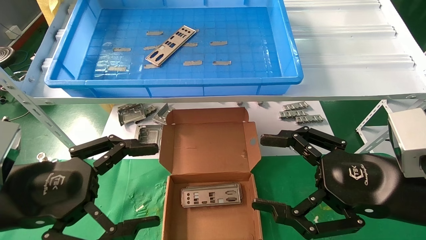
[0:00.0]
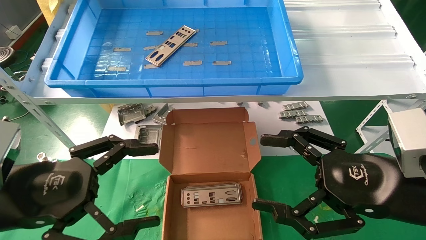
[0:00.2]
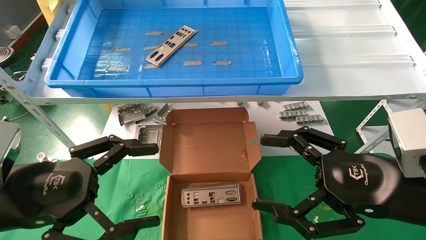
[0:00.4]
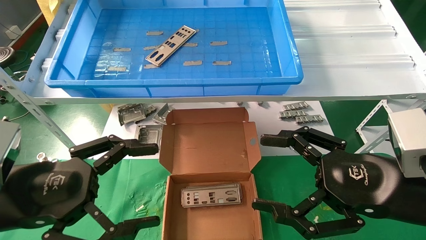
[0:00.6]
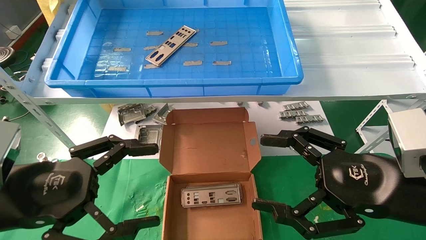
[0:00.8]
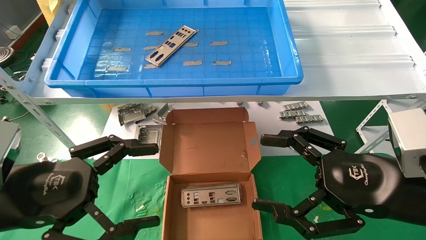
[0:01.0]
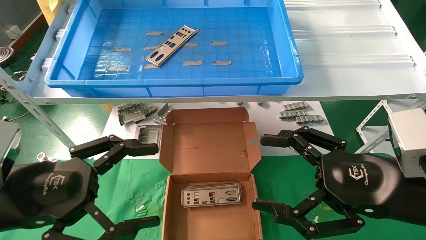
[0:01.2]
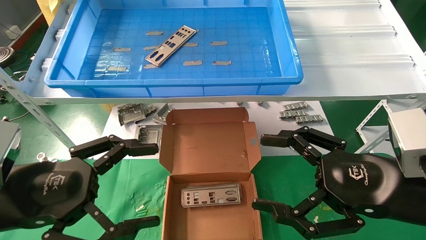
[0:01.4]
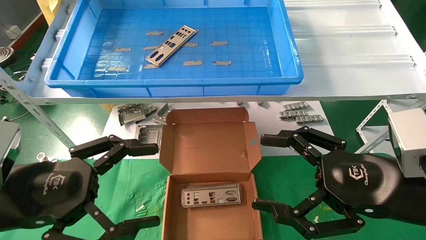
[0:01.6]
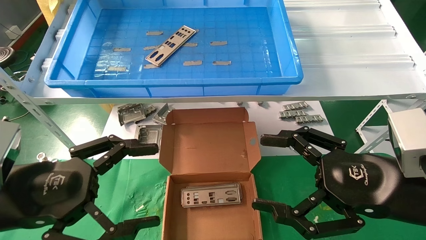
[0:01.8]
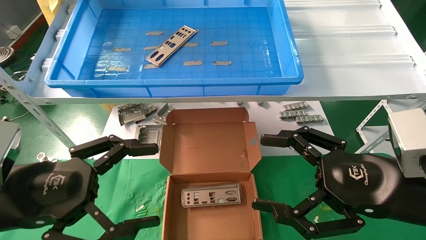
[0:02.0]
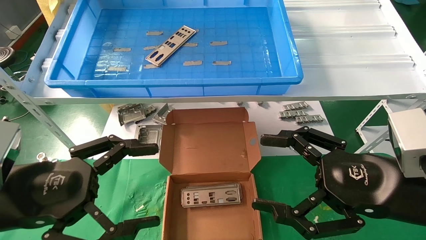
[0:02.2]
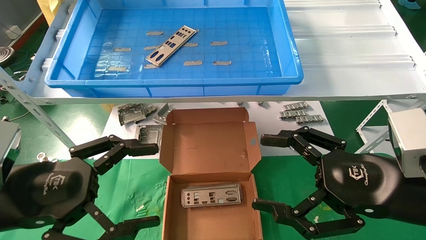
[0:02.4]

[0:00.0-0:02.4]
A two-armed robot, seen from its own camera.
Task of the whole recording: pick up the parts on the tray and put them in the cardboard box.
0:00.0 to 0:02.4: Neither gripper changes place.

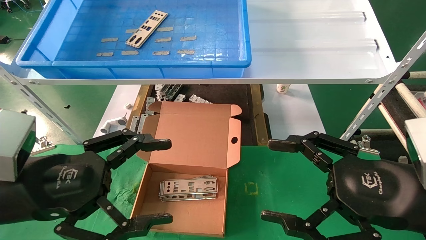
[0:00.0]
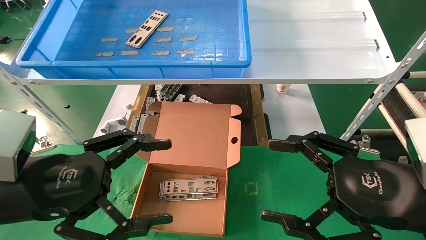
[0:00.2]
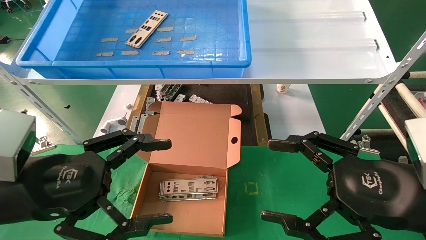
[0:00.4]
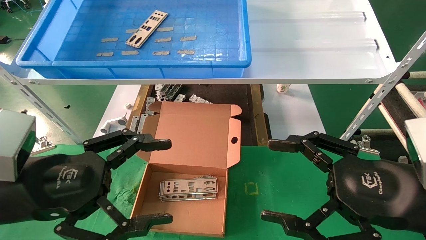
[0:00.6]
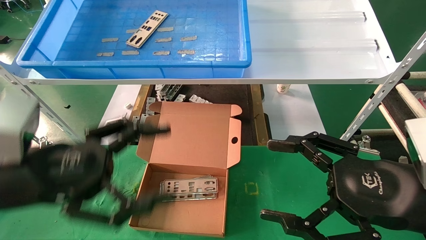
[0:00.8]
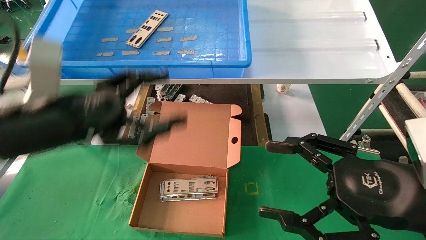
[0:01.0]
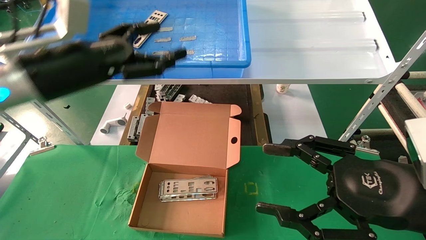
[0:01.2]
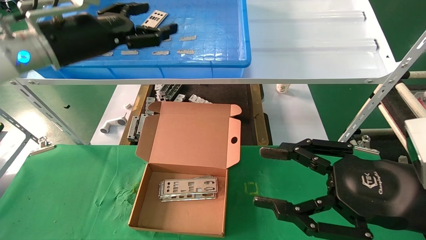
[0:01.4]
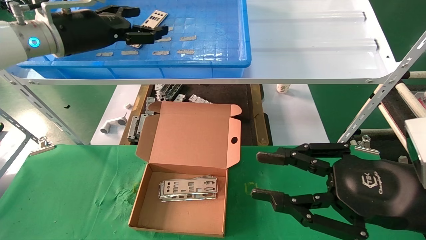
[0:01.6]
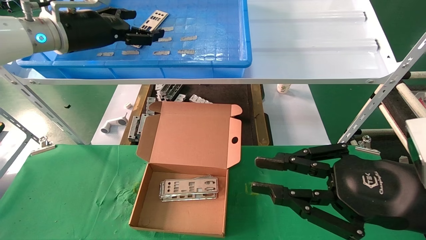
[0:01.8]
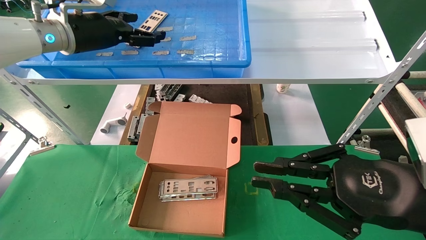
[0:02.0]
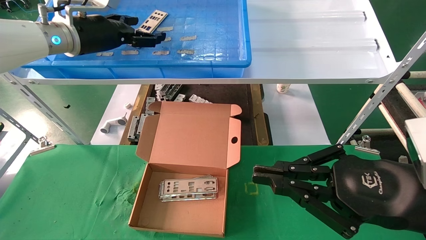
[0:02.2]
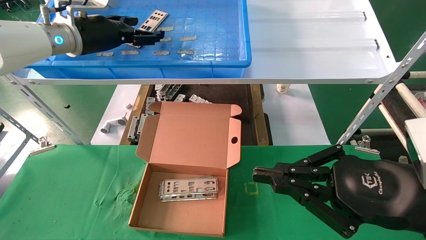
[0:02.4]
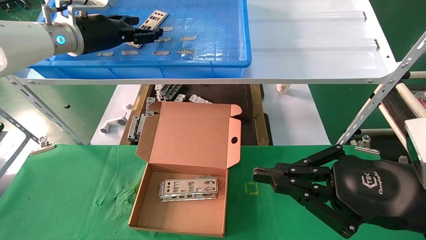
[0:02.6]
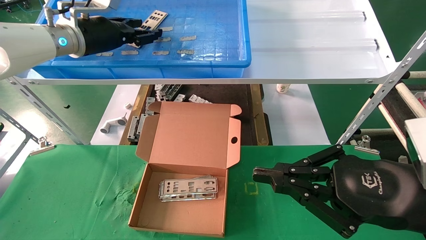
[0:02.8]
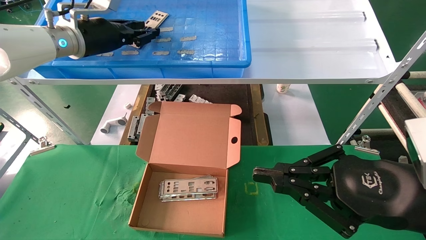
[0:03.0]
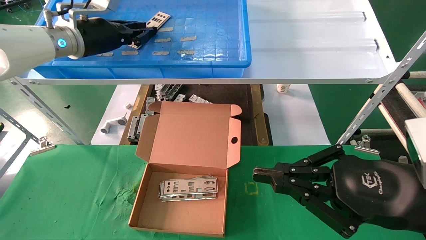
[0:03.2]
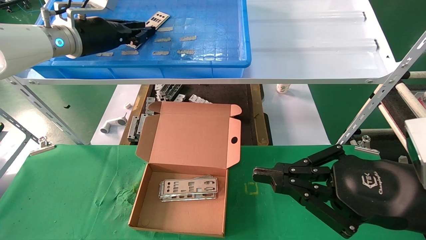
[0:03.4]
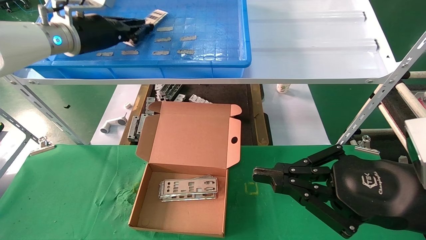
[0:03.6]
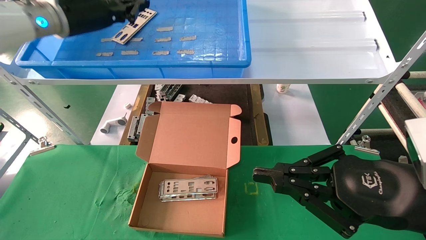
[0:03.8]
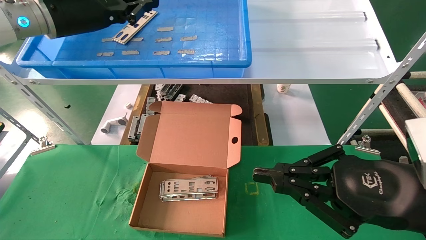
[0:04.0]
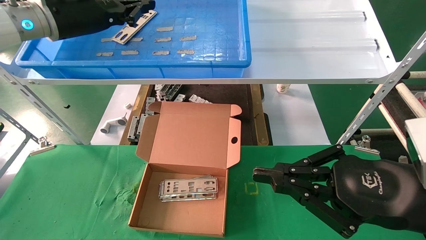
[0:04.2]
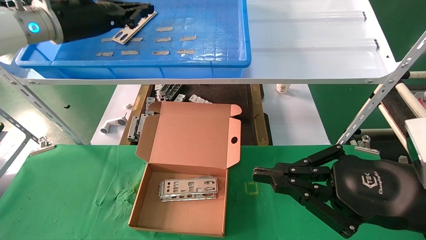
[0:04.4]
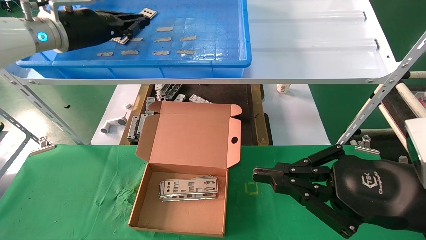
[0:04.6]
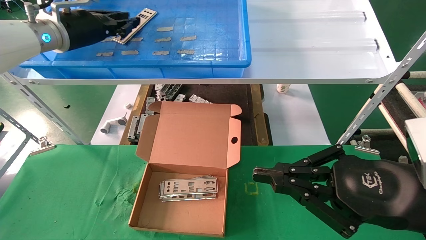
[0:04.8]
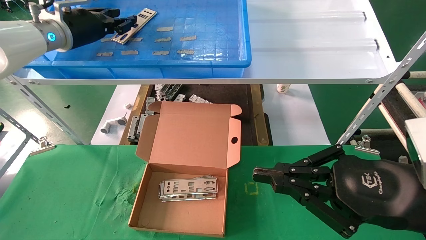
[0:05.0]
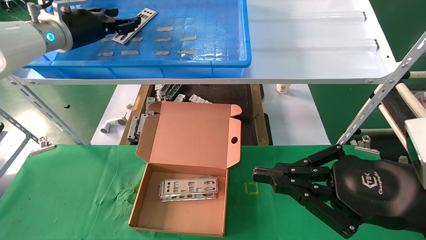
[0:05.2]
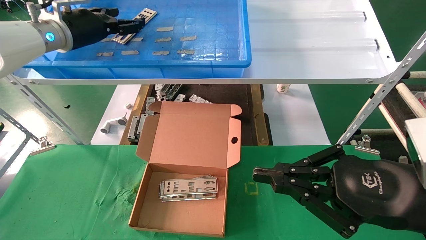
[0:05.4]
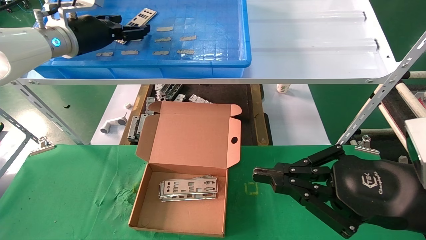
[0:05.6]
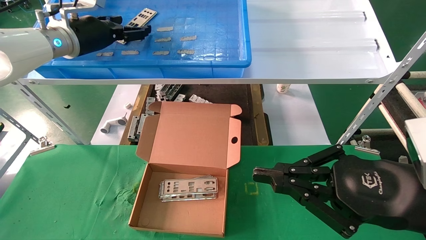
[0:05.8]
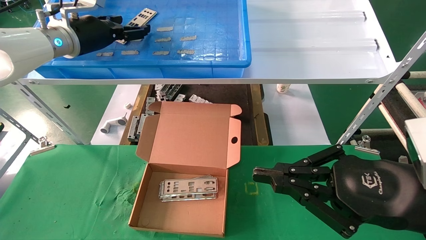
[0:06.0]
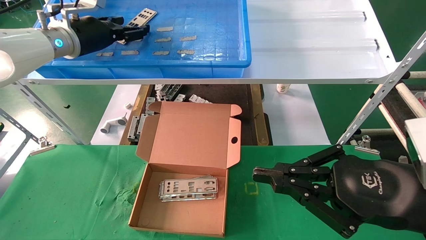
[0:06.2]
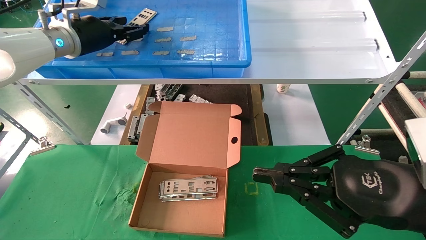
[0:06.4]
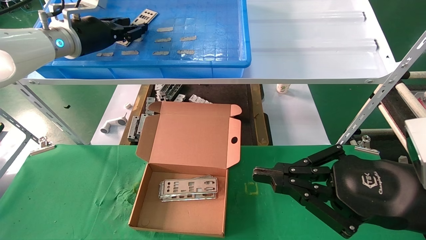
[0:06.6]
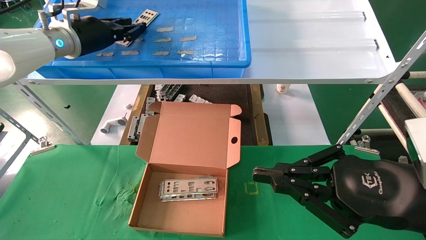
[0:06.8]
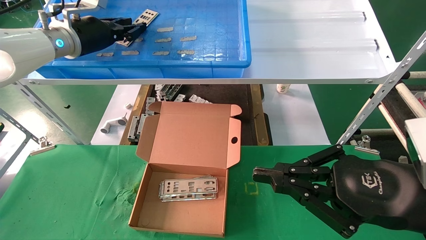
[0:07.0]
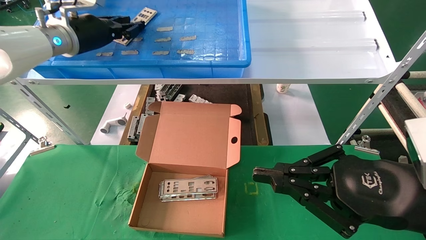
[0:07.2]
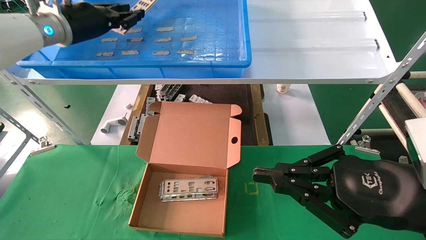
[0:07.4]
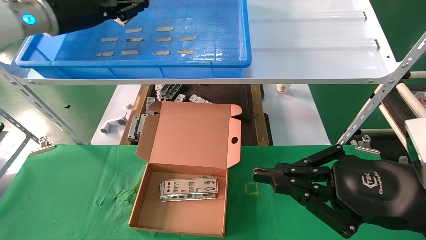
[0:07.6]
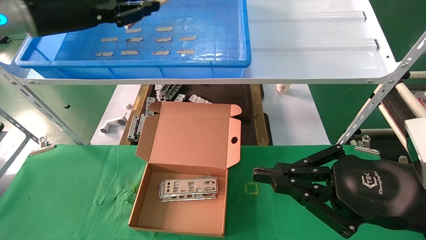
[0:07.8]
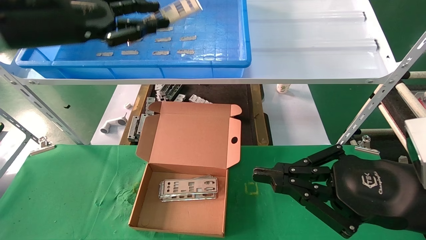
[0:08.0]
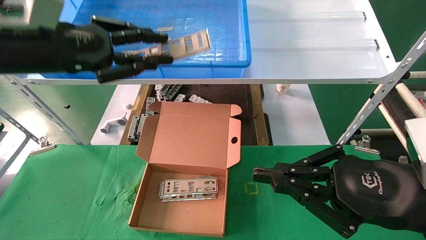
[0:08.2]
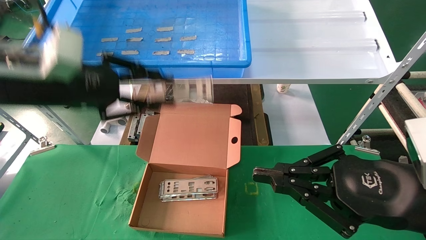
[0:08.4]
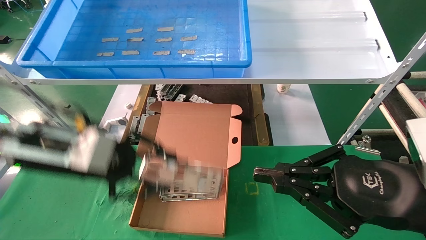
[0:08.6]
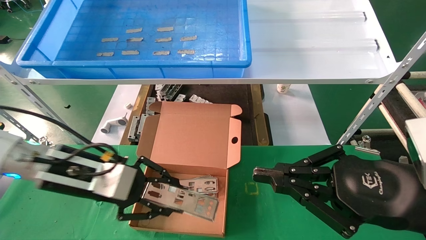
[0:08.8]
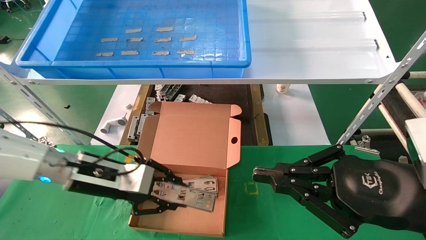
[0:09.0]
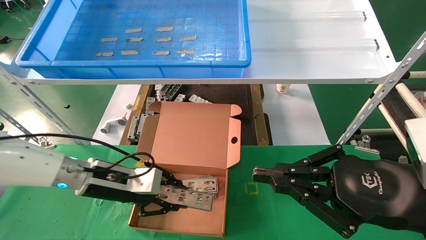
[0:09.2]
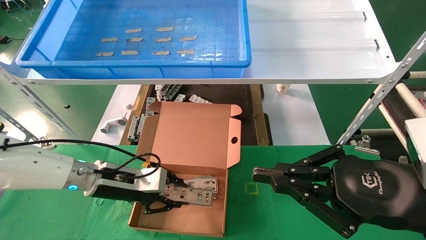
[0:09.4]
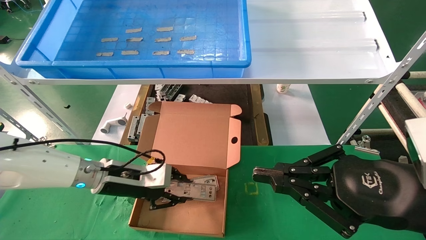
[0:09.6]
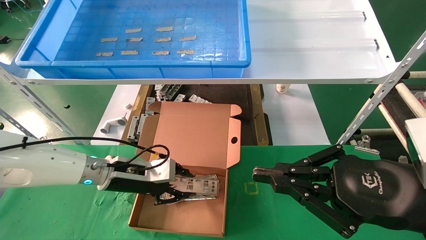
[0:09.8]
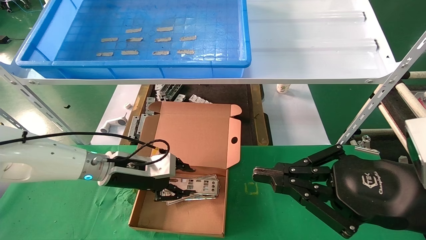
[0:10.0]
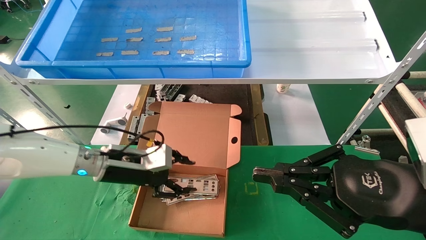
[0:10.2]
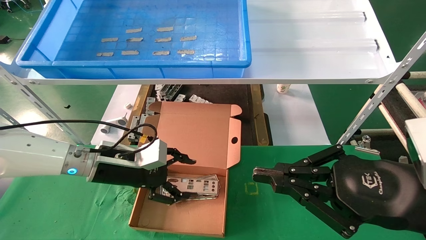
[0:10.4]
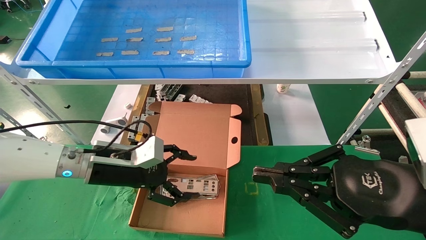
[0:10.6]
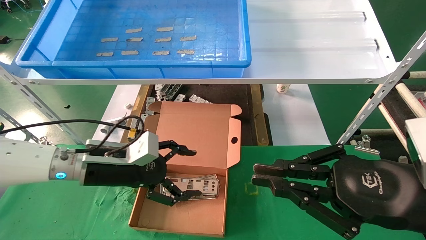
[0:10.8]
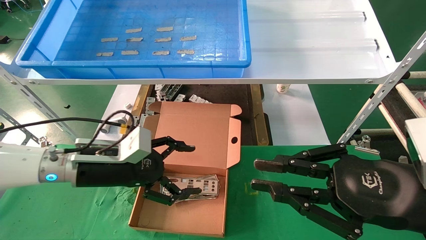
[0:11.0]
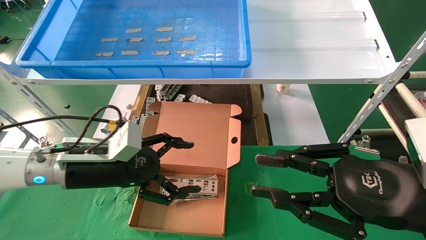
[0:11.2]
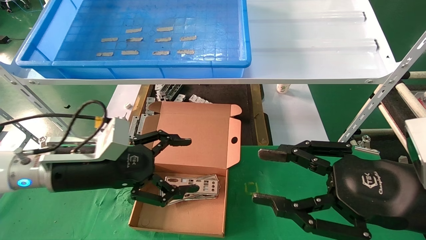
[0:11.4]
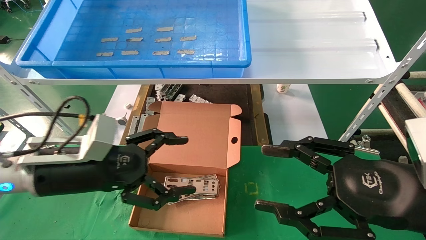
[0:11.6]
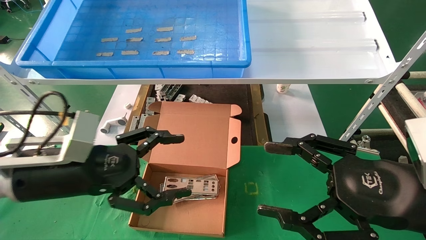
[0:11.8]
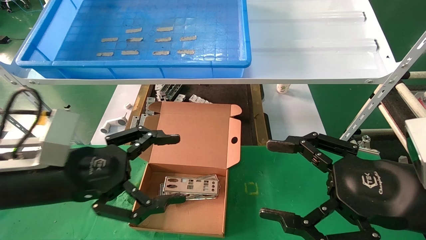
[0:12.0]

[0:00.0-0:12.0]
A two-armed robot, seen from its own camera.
Task of the whole recording: pick up the parts on the tray and put them in the cardboard box.
Step, 0:01.0 to 0:07.4: Pick up the IO bracket from the container box.
Step, 0:07.6 to 0:10.0: Place the IO bracket into the ingredient slot.
0:00.0 to 0:01.6: The right gripper closes its fingers; the left gripper is displaced forward and upward by approximately 25 cm.
0:01.6 to 0:03.0: The right gripper closes; the left gripper closes up.
0:03.0 to 0:04.4: The left gripper closes.
0:04.4 to 0:06.0: The left gripper opens its fingers.
0:06.0 to 0:07.6: The left gripper ends up approximately 5 cm from where it was, and closes its fingers.
0:07.6 to 0:09.0: The left gripper heads downward, covering approximately 25 cm.
0:09.0 to 0:10.4: The left gripper opens up.
0:10.4 to 0:12.0: The left gripper moves backward and upward, some 15 cm, and opens up. The right gripper opens up.

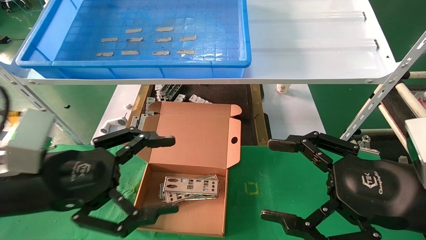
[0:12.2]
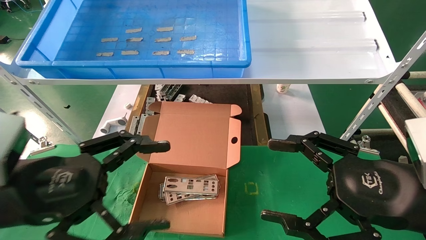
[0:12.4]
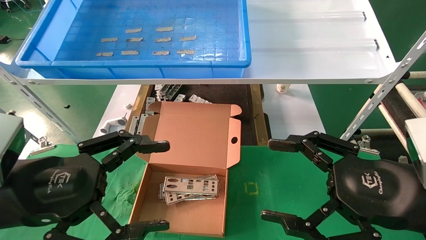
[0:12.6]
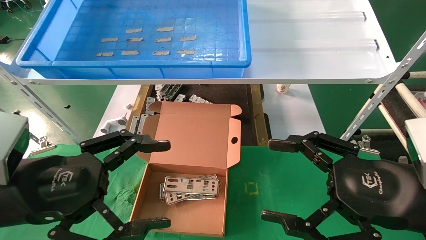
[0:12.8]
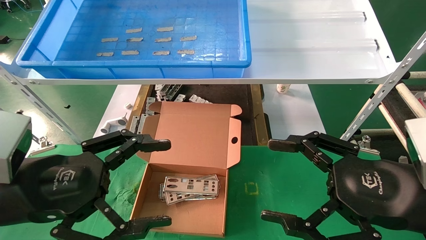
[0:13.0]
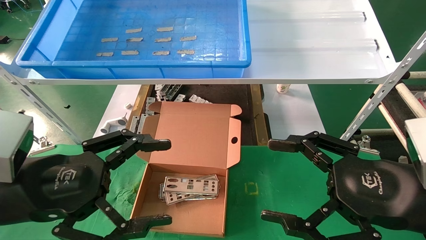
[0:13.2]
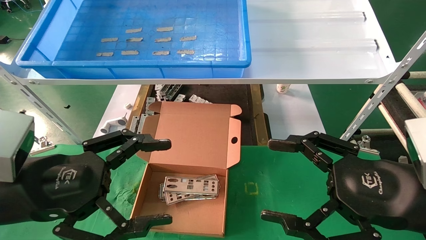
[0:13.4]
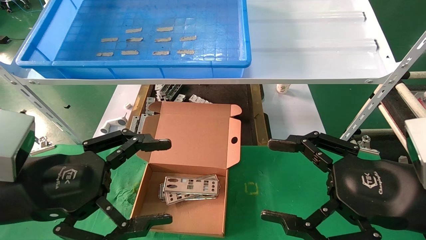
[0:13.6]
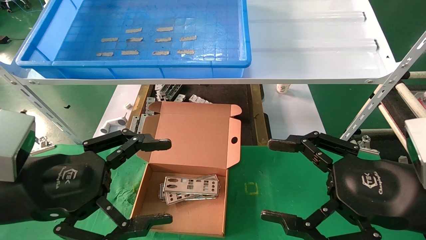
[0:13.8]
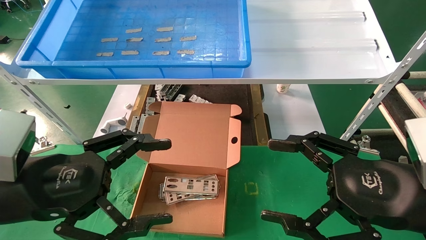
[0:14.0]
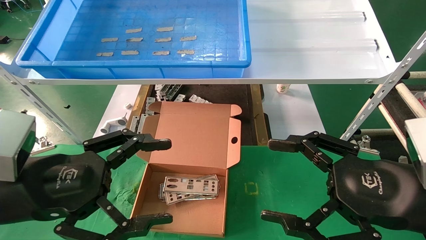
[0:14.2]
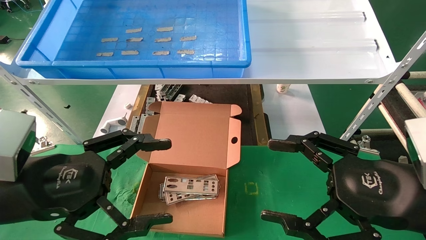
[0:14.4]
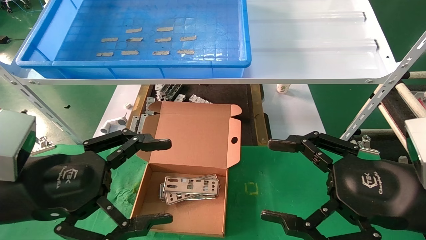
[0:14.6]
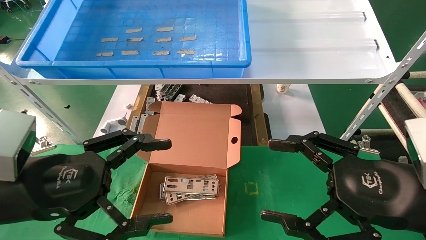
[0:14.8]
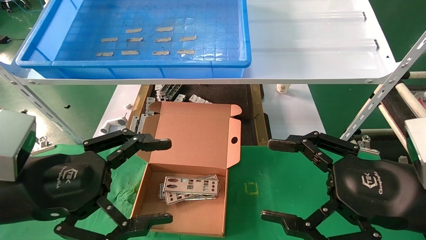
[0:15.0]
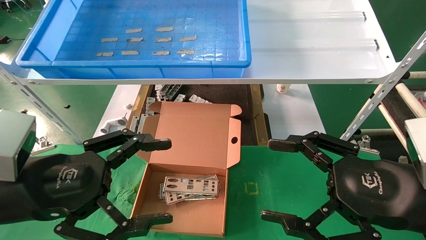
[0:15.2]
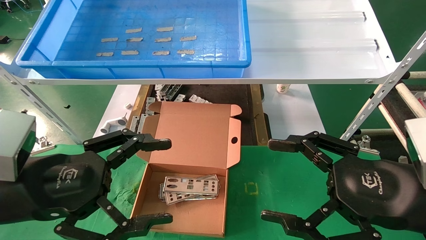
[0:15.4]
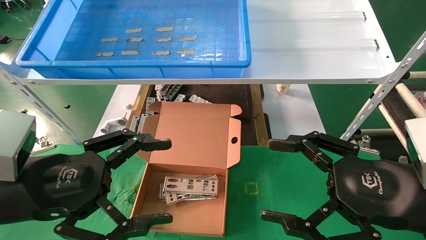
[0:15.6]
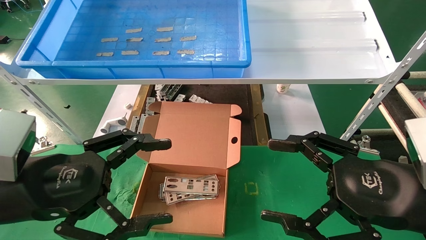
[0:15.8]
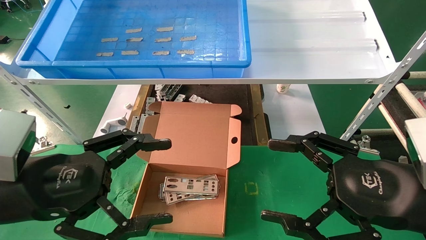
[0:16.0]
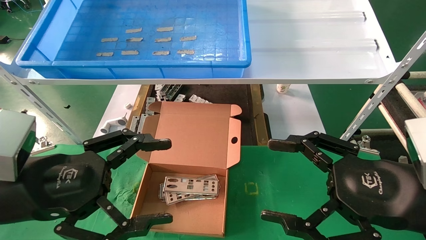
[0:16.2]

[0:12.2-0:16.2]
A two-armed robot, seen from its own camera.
Task of the whole recording: pick up the parts on the tray and put them in the cardboard box.
0:12.2 to 0:13.6: The grippers move only a little.
0:13.6 to 0:16.2: The two grippers keep their place.
